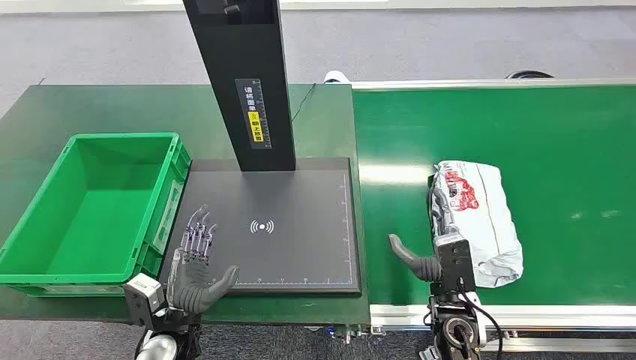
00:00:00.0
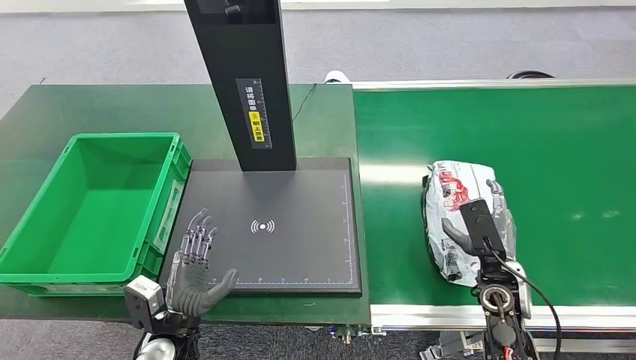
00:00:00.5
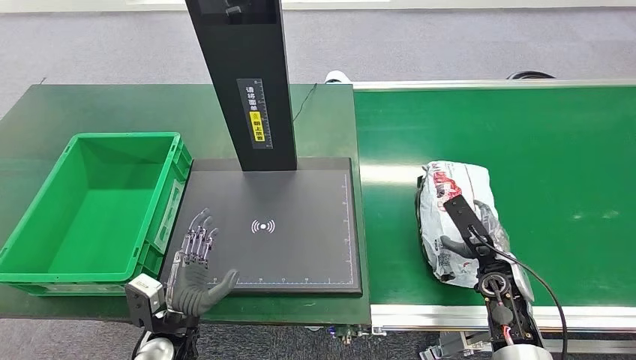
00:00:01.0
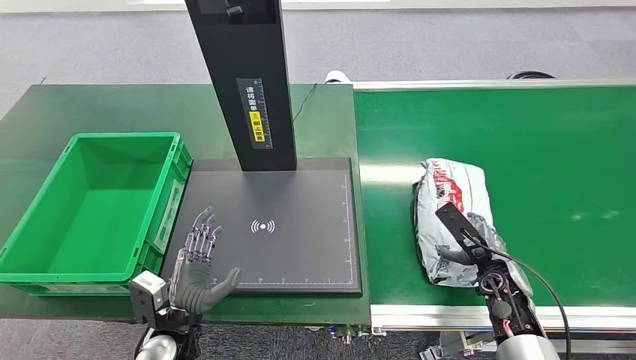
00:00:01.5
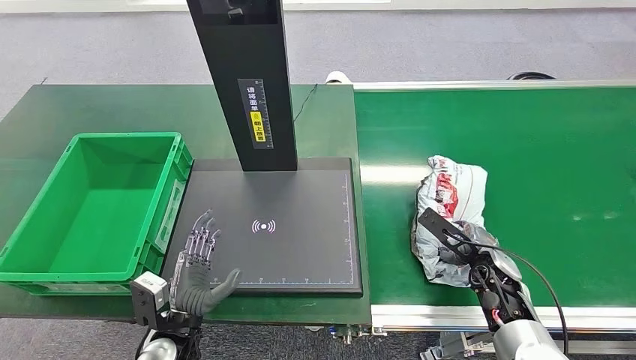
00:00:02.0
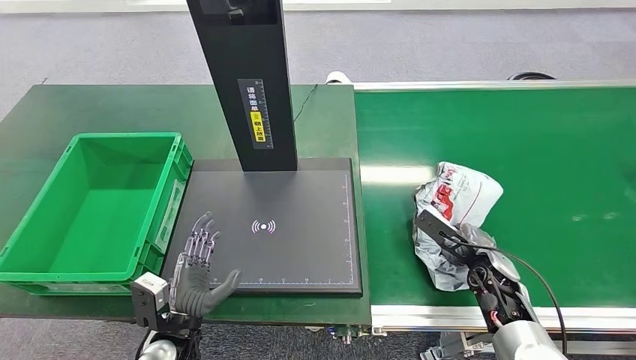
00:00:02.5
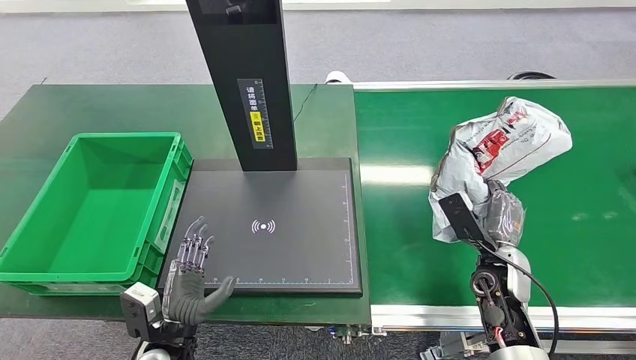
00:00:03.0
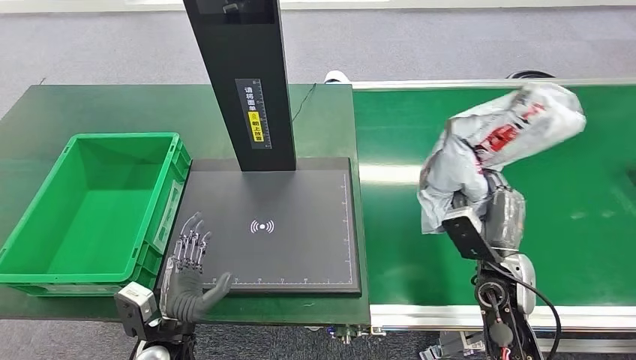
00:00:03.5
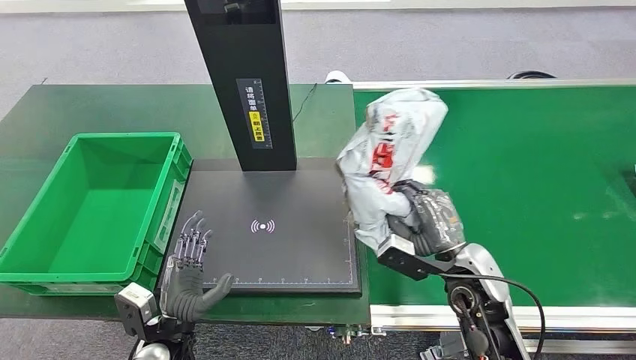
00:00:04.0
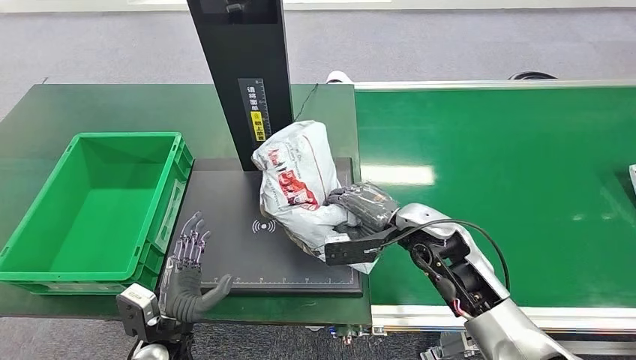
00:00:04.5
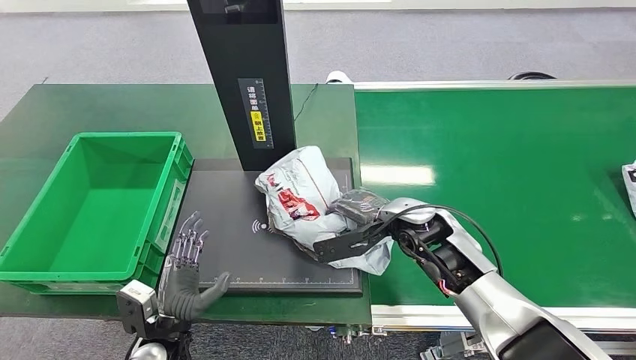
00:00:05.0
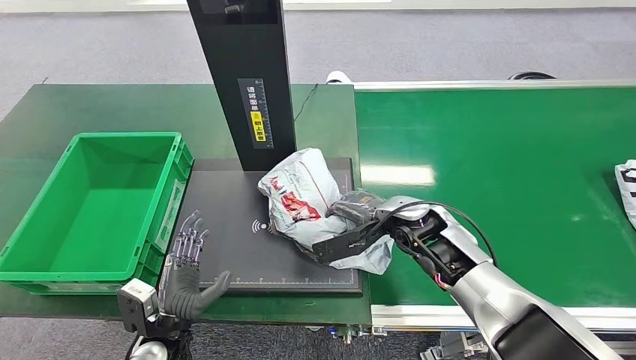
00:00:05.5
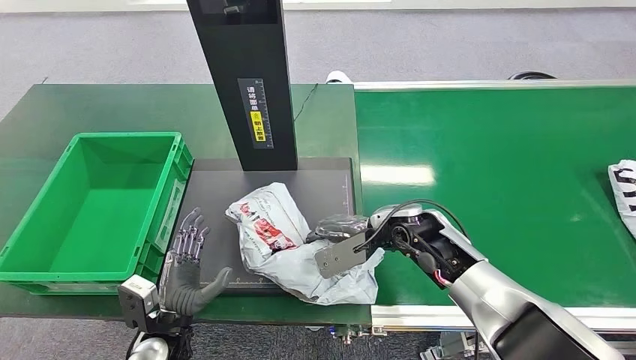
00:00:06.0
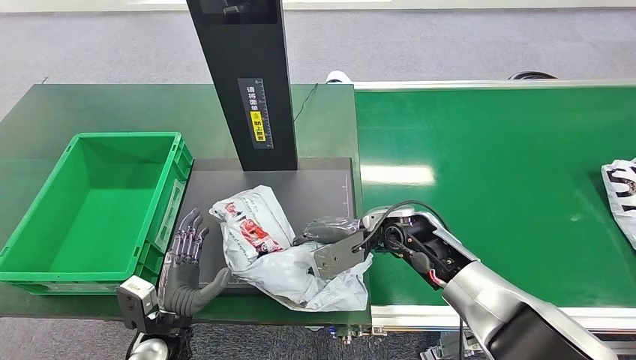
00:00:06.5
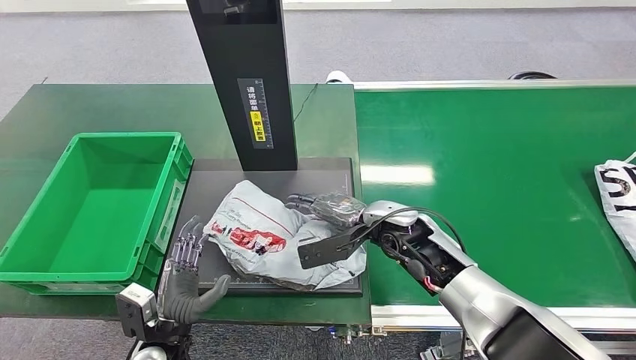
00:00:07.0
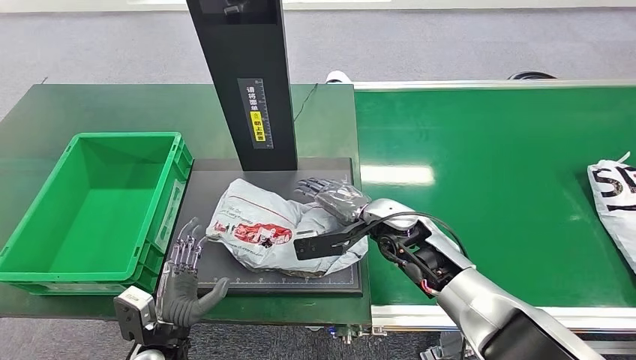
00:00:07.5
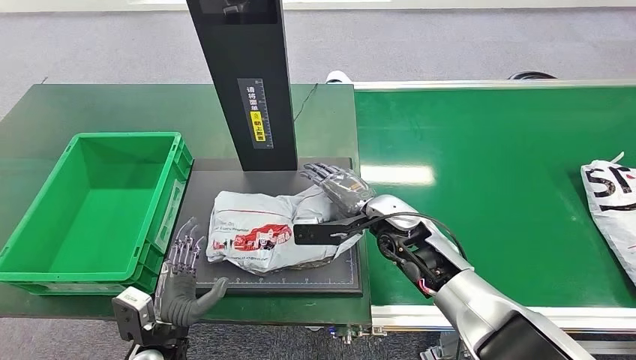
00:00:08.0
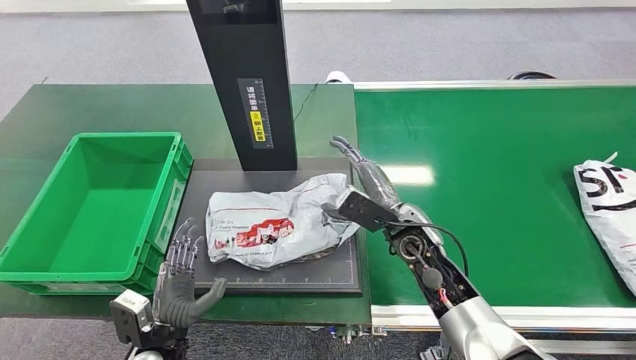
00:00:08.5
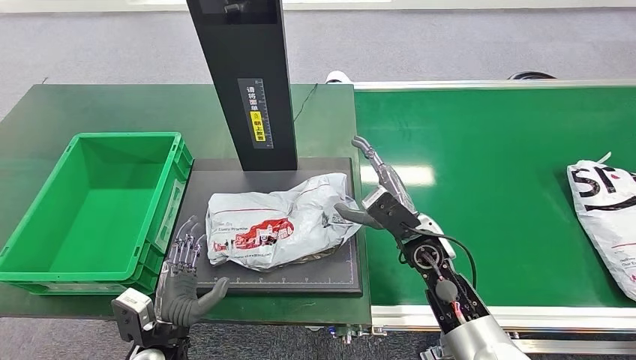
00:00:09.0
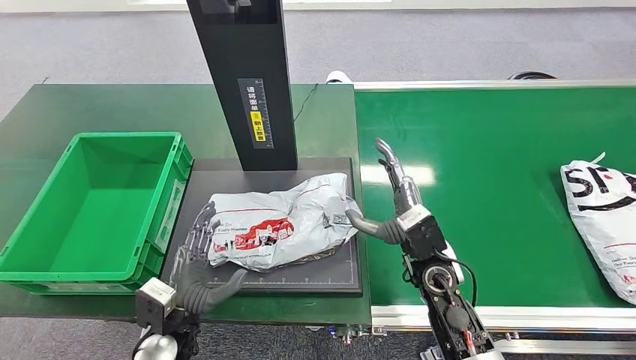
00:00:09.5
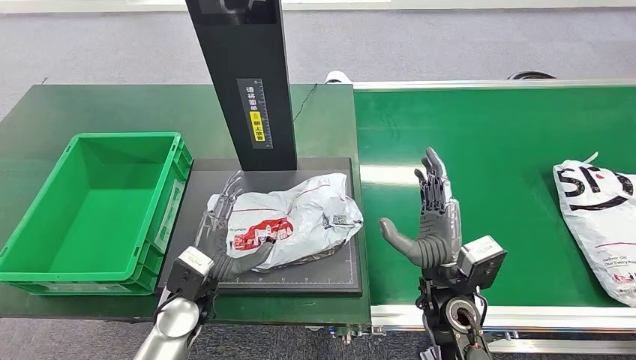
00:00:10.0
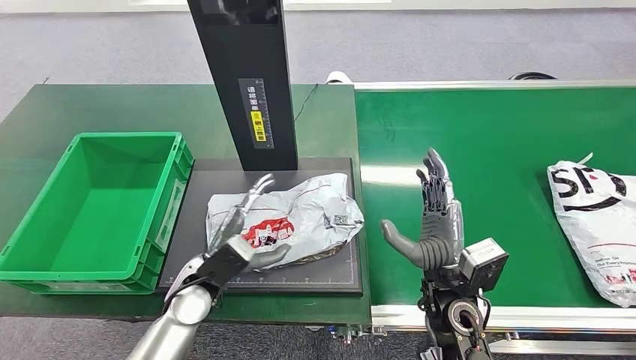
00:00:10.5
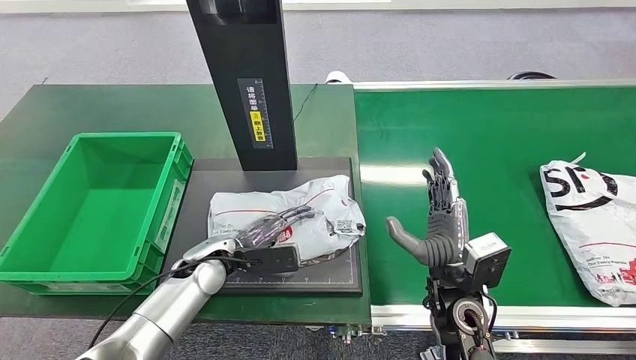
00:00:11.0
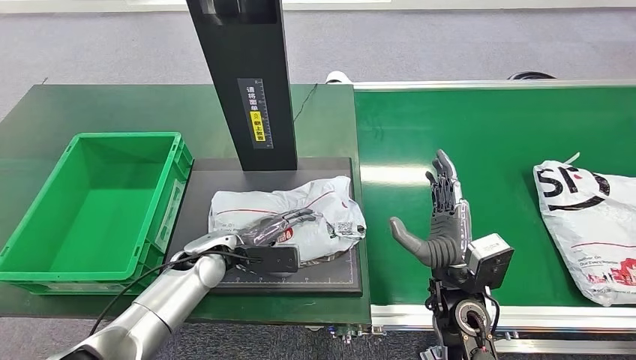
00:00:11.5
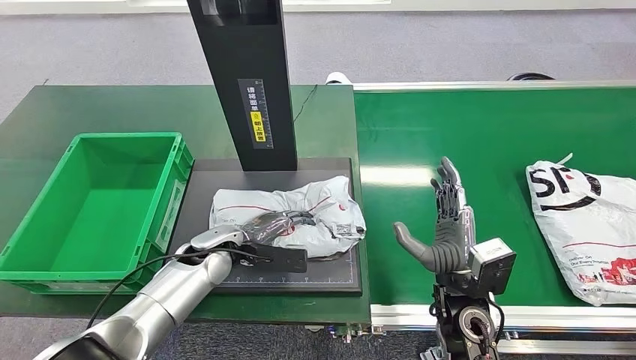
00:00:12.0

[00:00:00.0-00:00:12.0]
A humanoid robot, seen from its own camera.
Task of the whole recording: Weigh the package on the weighing device and place it in the left basket.
Step, 00:00:00.0 to 00:00:03.5: Pick up the package from the conveyor belt.
Step, 00:00:04.0 to 00:00:08.5: Place the package onto the inbound machine.
00:00:02.0 to 00:00:04.0: The right hand heads to the left and upward, covering roughly 10 cm.
00:00:08.0 to 00:00:10.0: The left hand heads forward and upward, covering some 10 cm; the right hand is displaced backward by about 10 cm.
00:00:10.0 to 00:00:12.0: The left hand shifts roughly 10 cm forward.

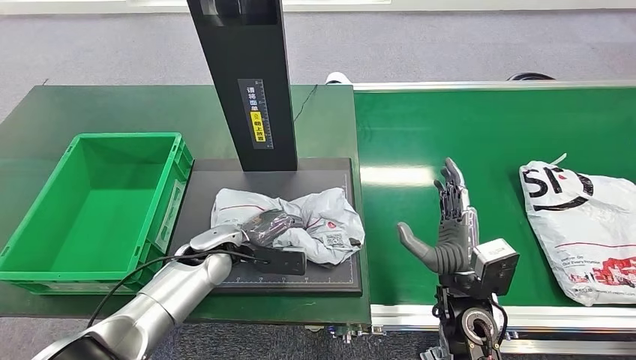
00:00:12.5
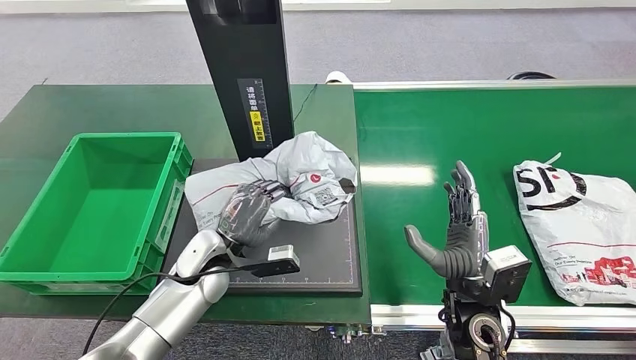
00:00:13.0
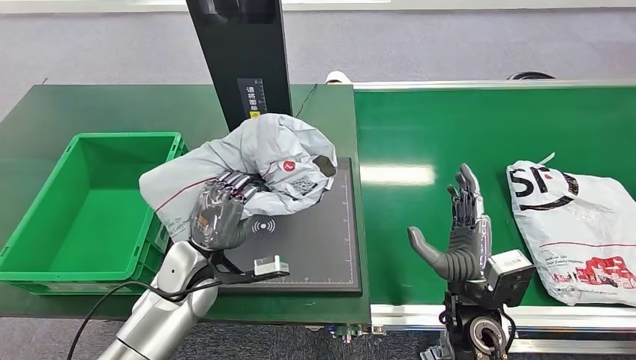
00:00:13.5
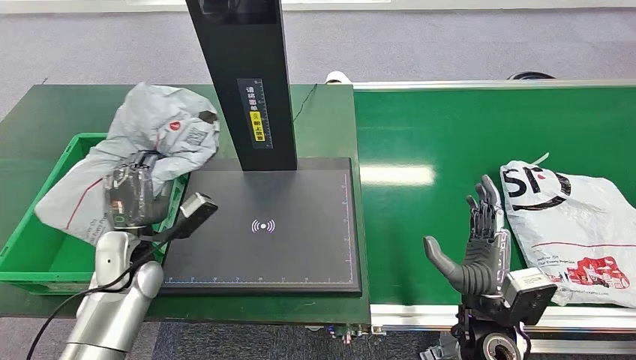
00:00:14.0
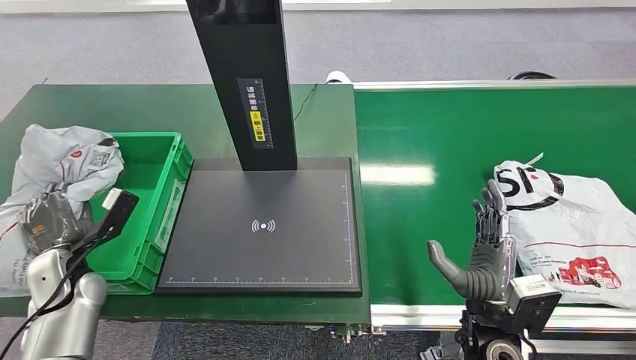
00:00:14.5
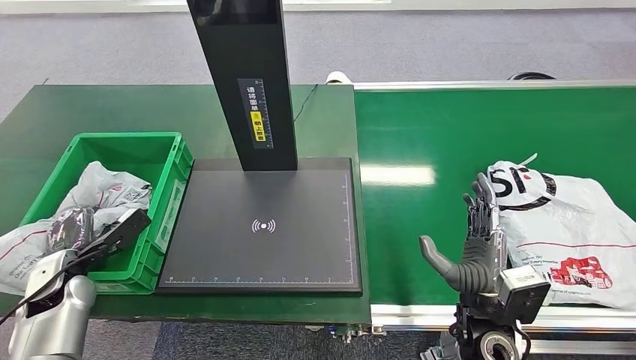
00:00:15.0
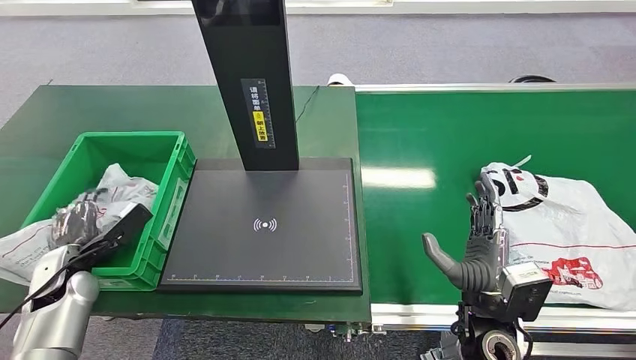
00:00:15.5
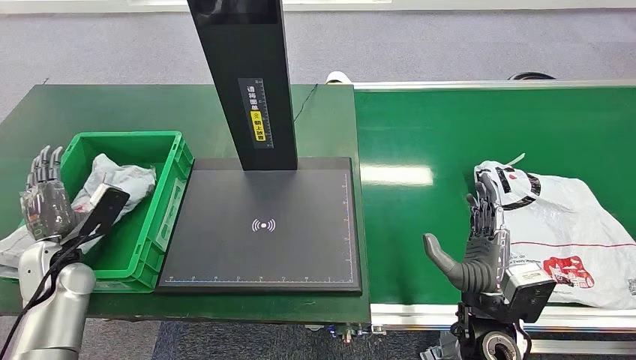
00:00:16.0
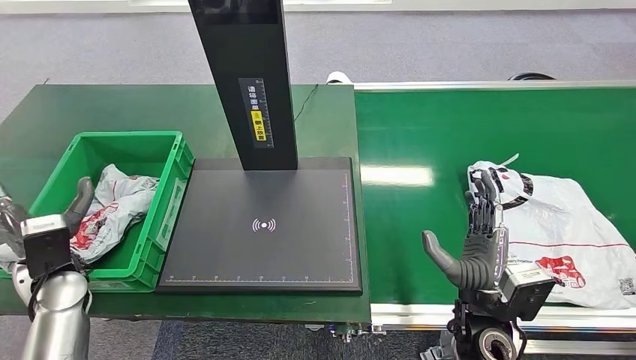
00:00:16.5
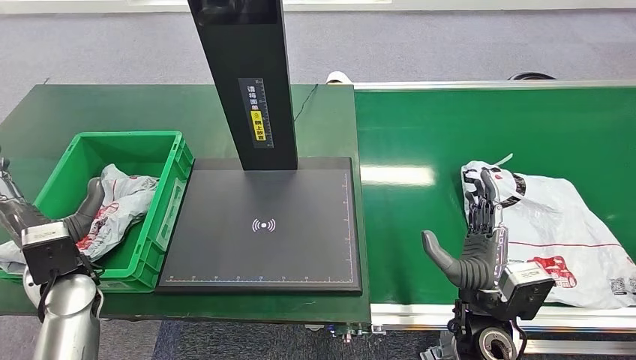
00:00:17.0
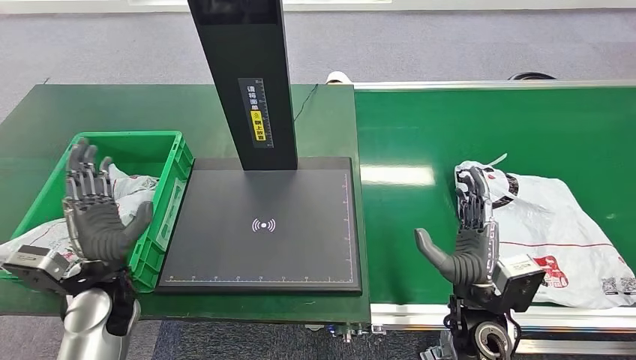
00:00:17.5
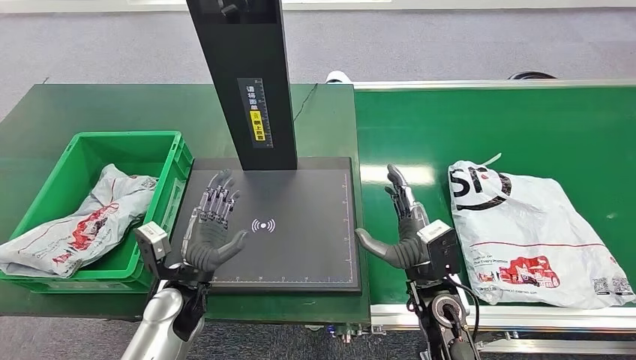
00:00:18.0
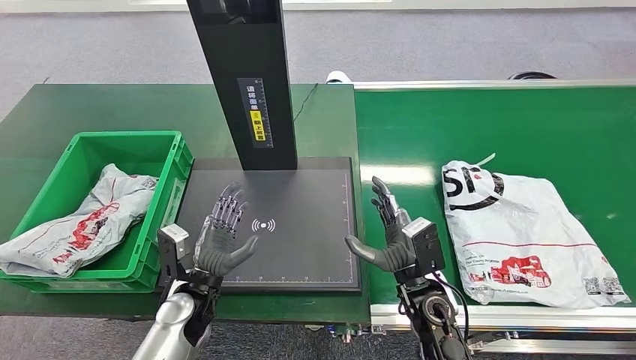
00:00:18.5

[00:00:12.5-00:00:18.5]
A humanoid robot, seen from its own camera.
Task of the whole recording: Weigh the package on the weighing device and place it in the left basket.
Step, 00:00:14.0 to 00:00:18.0: Place the package into the parcel locker.
